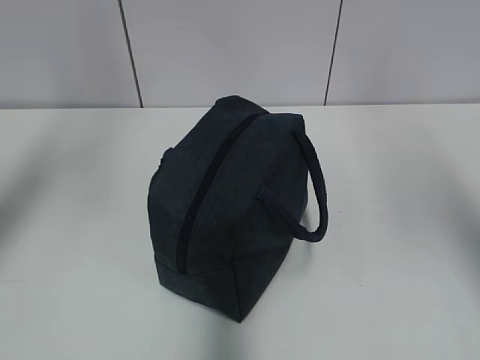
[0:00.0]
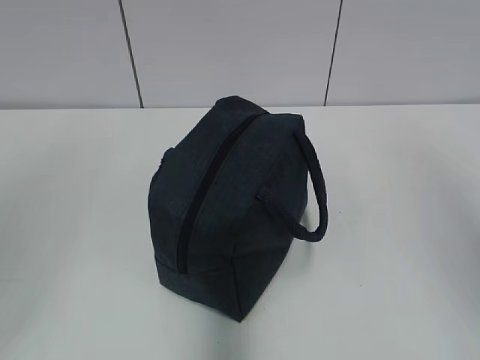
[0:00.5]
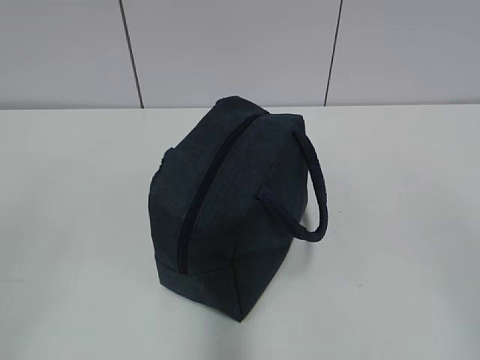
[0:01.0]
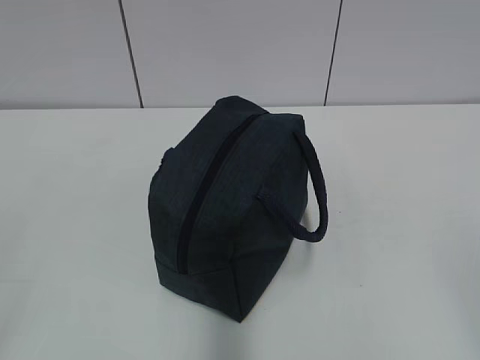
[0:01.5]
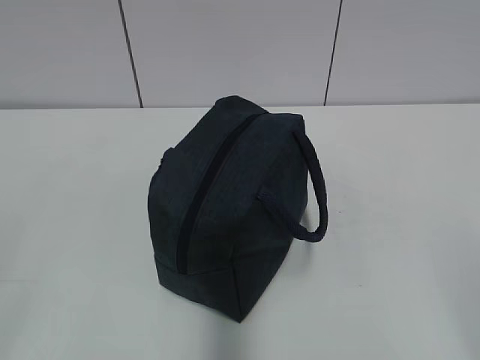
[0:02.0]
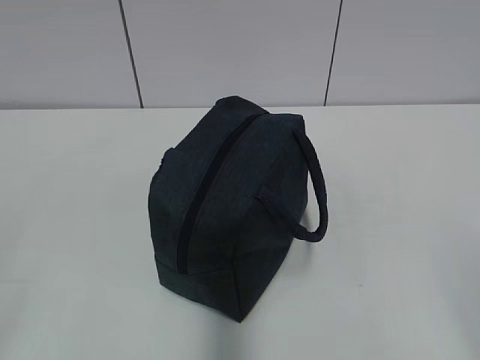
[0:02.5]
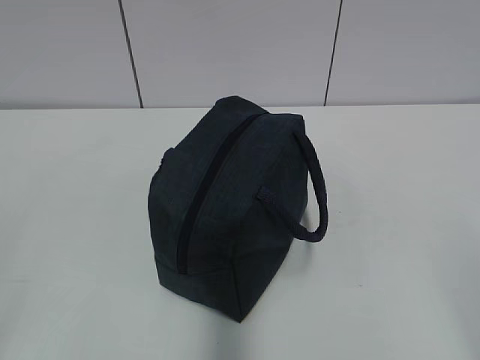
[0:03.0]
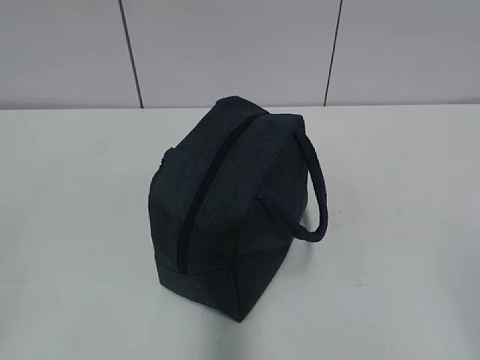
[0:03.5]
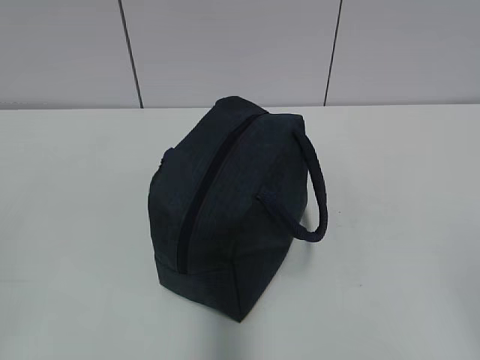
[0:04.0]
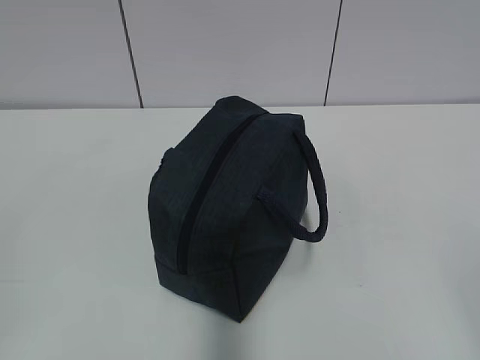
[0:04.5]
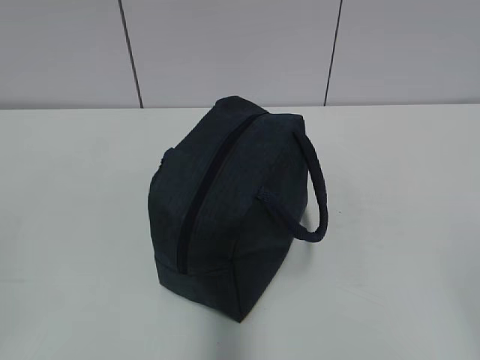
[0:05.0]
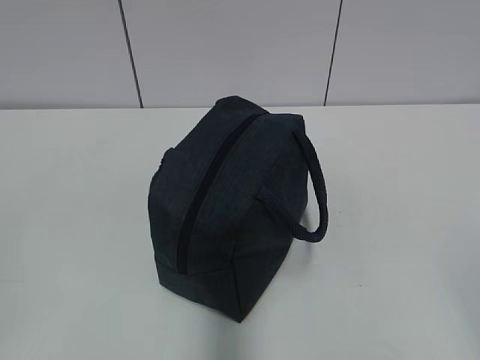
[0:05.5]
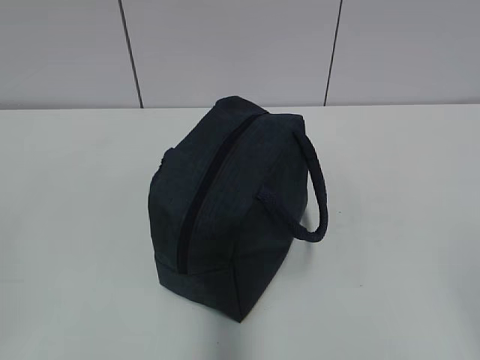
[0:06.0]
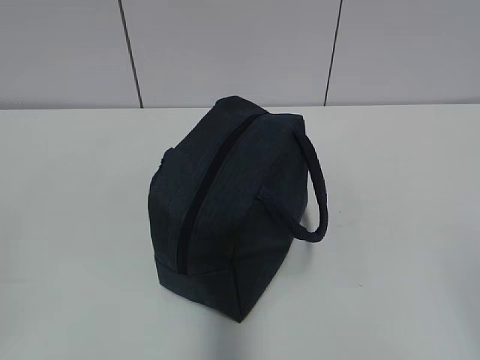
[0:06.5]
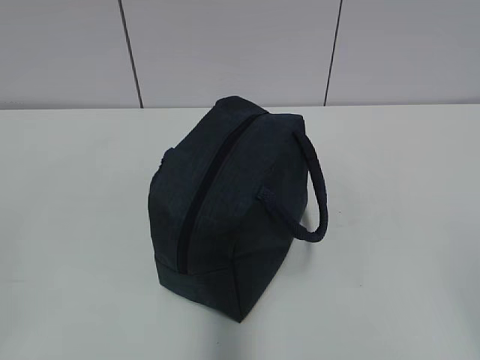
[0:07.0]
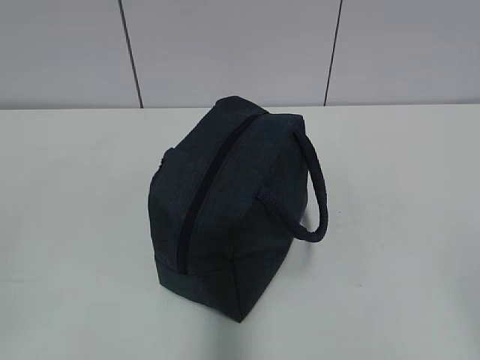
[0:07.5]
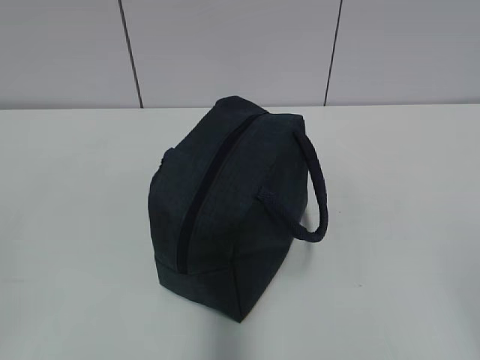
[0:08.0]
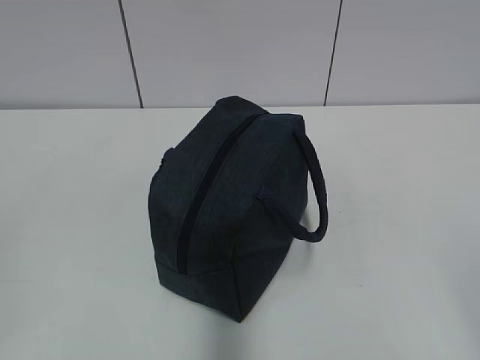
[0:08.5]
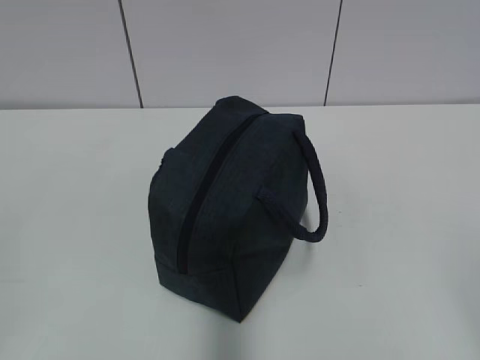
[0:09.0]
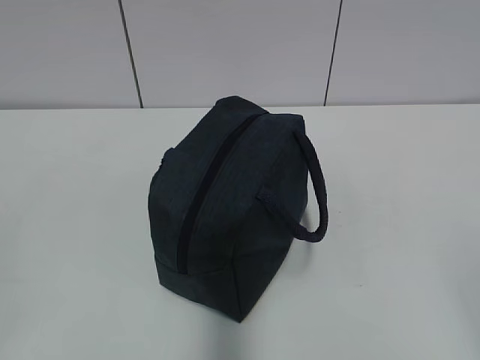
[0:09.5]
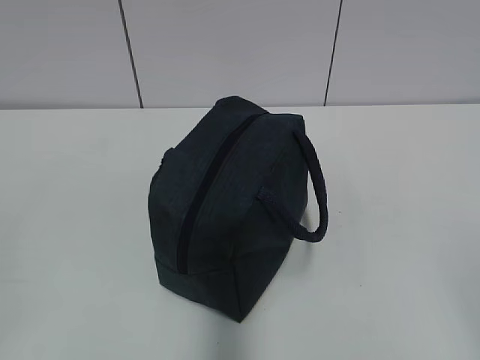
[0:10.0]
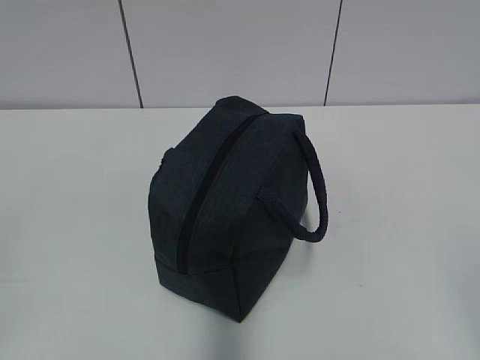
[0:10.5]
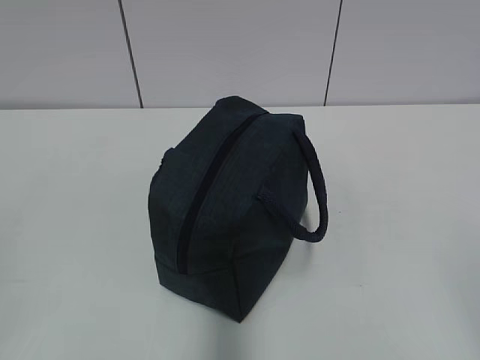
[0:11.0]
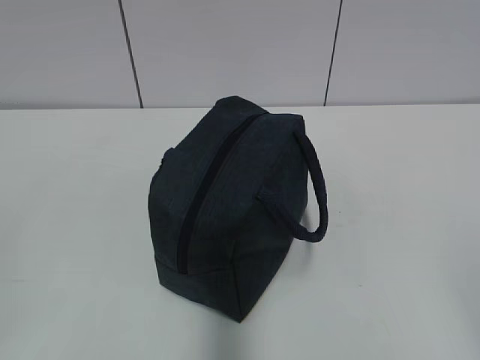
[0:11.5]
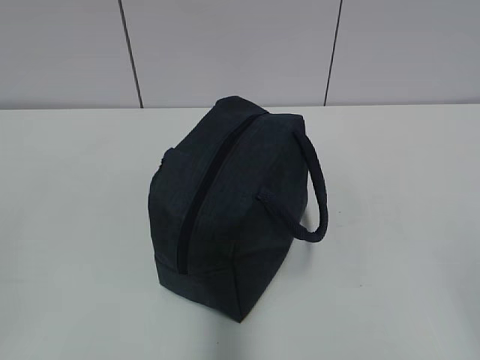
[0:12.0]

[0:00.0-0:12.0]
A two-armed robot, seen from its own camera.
0:00.0 to 0:02.0: The left gripper is displaced backward and downward by some 35 cm; the right gripper moves downward and backward, some 25 cm.
0:04.0 to 0:12.0: Both grippers stay put.

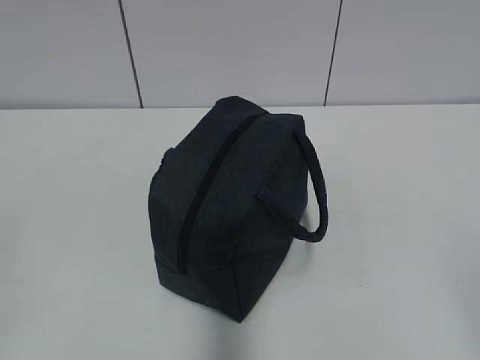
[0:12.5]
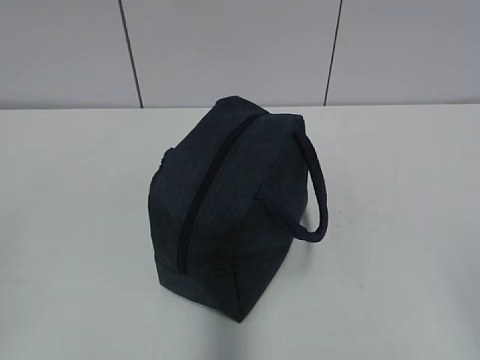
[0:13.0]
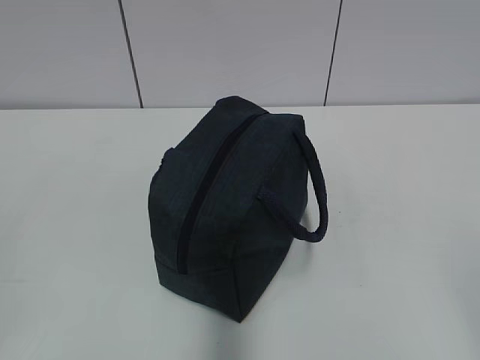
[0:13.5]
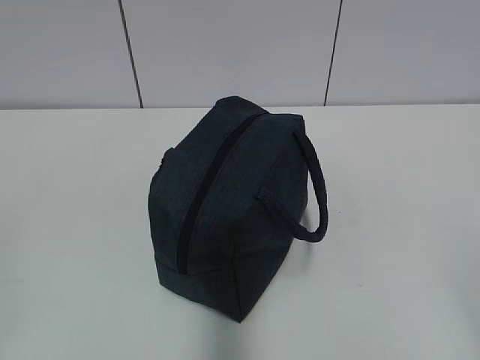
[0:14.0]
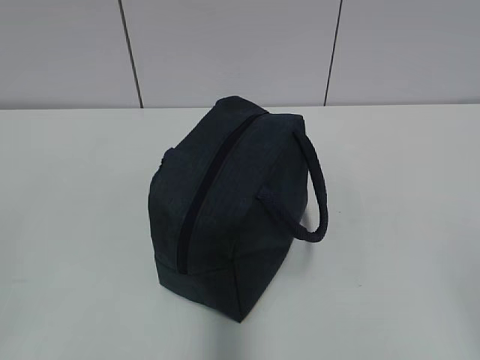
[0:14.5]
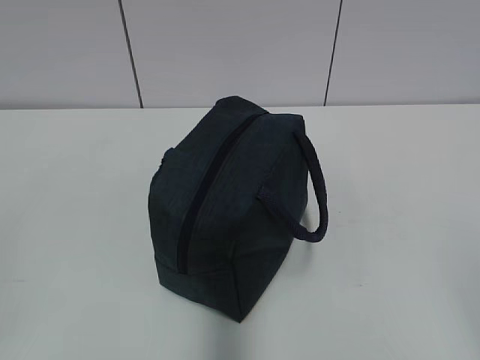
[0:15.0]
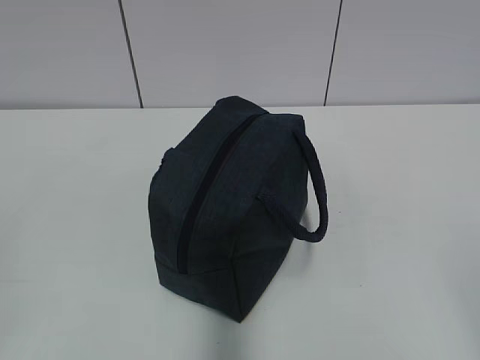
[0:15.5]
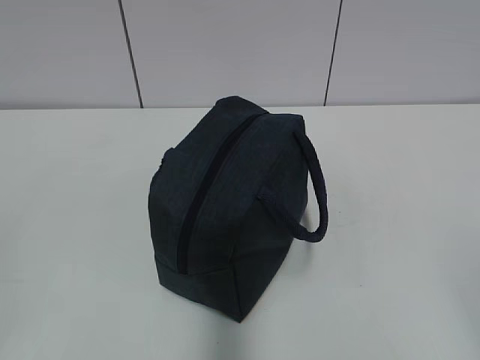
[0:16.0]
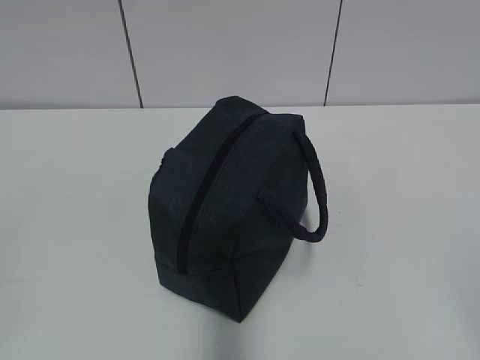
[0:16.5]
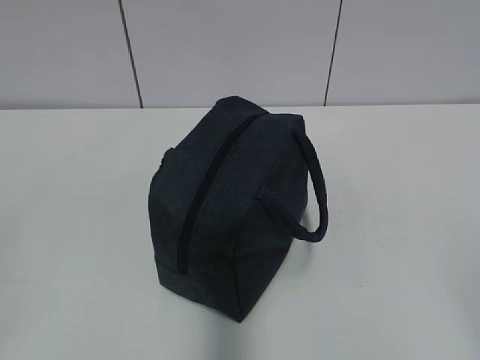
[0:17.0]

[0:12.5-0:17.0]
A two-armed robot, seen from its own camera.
0:12.5 to 0:17.0: Neither gripper changes place.
